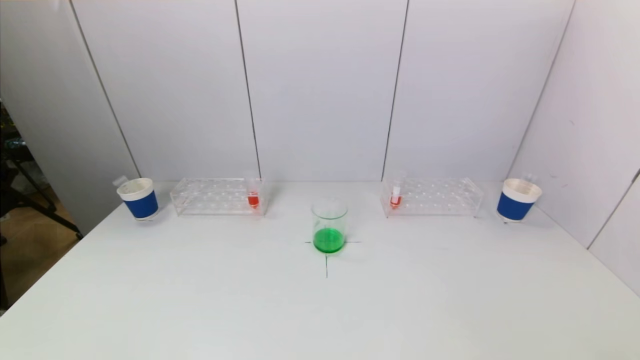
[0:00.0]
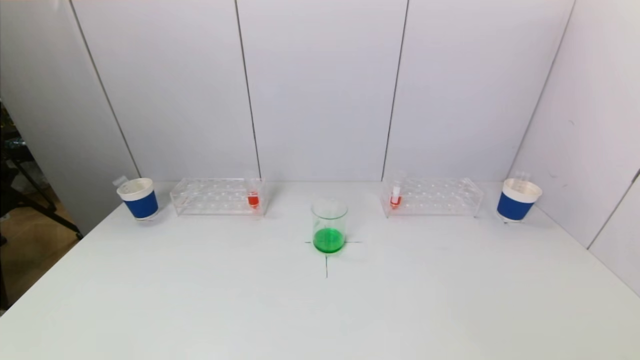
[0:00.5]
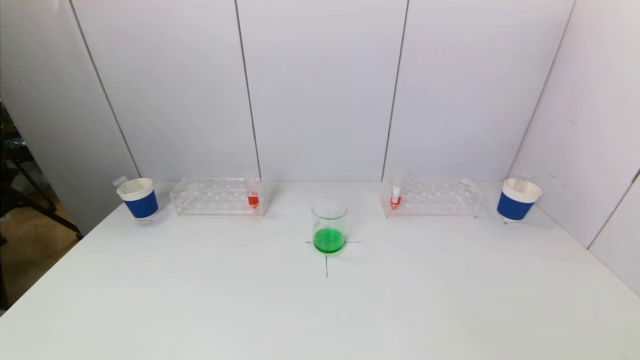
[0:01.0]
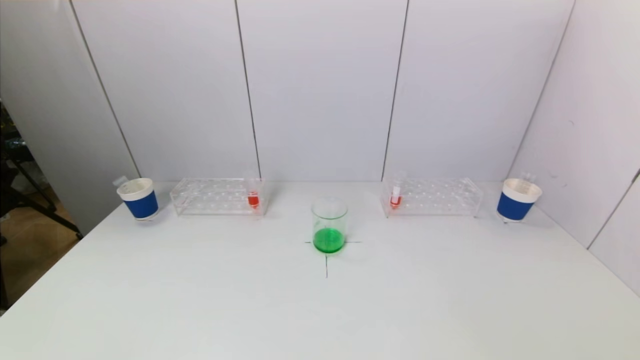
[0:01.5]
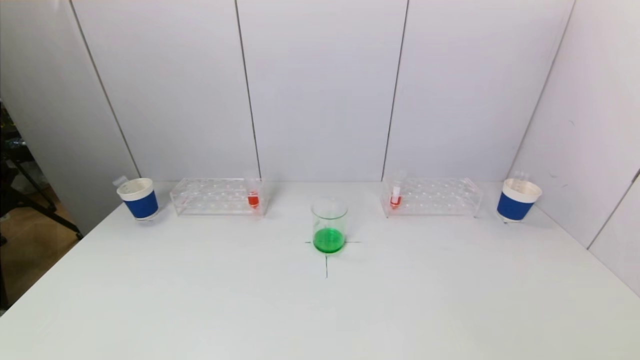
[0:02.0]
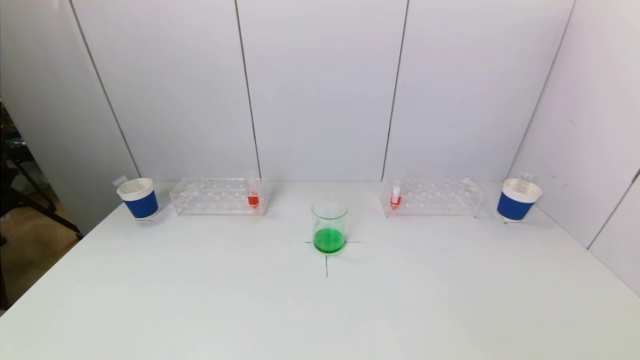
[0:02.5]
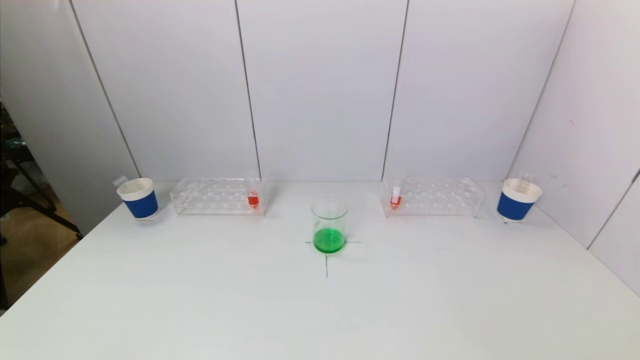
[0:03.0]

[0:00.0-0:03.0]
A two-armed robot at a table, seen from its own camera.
Task of the whole recording: pick up a test tube with pigment on left test tube rack and a test tube with pigment on right test tube rack by grippers and pour them into the beaker.
0:01.5 to 0:03.0: Both grippers stay put.
